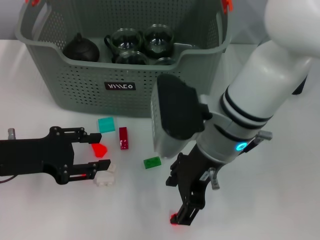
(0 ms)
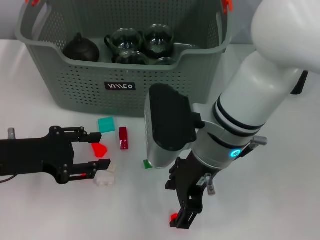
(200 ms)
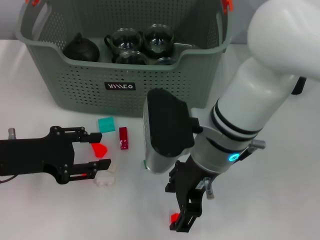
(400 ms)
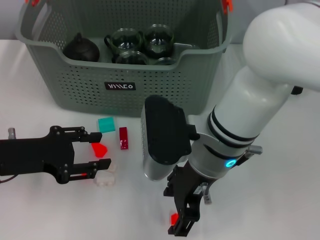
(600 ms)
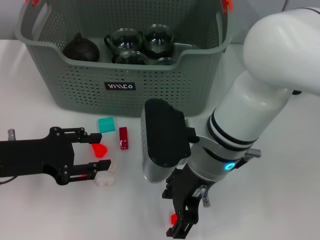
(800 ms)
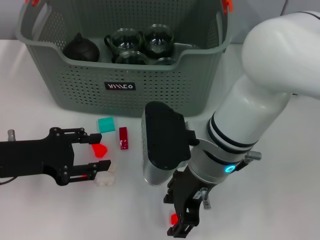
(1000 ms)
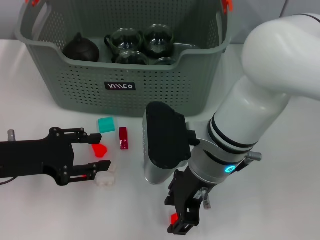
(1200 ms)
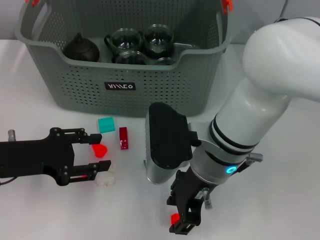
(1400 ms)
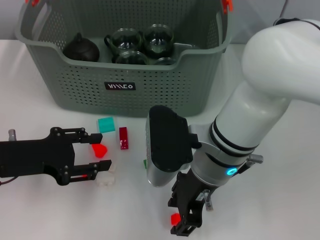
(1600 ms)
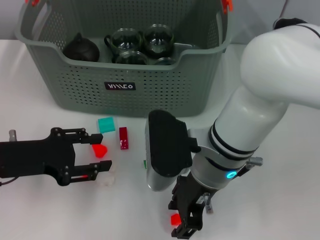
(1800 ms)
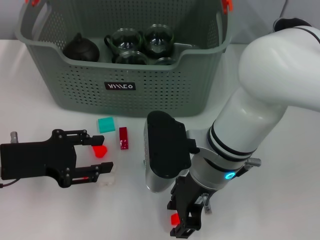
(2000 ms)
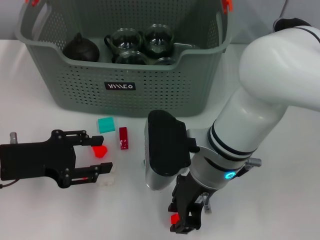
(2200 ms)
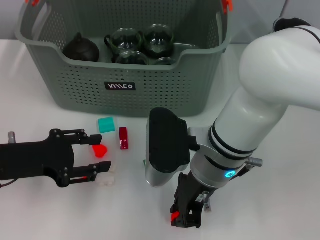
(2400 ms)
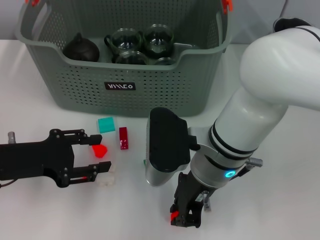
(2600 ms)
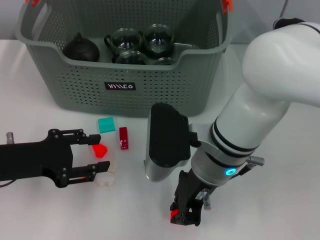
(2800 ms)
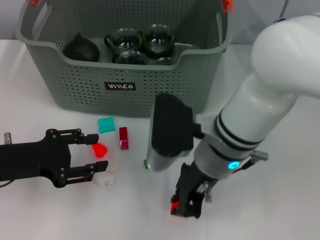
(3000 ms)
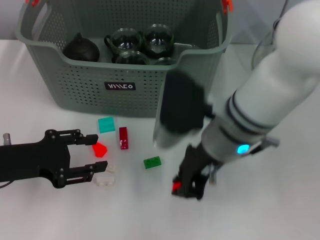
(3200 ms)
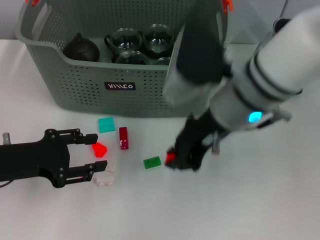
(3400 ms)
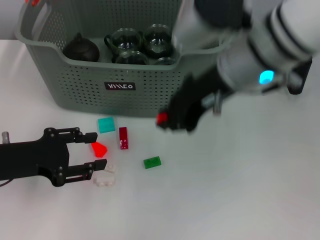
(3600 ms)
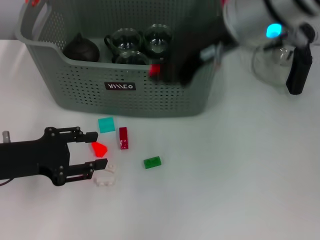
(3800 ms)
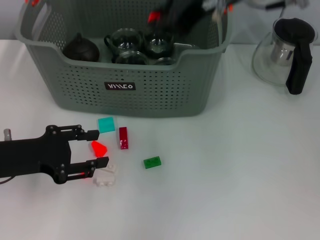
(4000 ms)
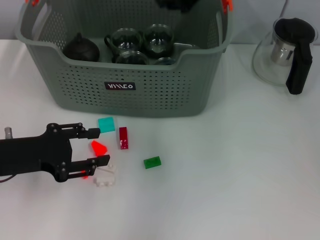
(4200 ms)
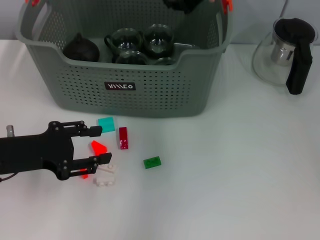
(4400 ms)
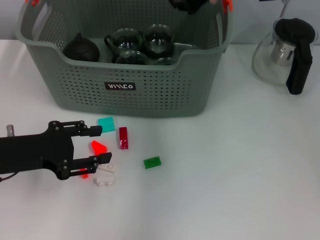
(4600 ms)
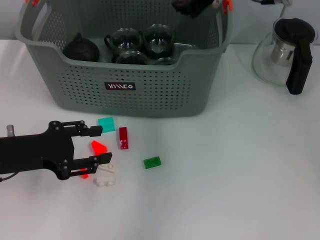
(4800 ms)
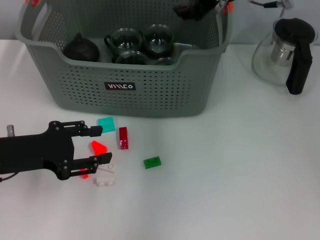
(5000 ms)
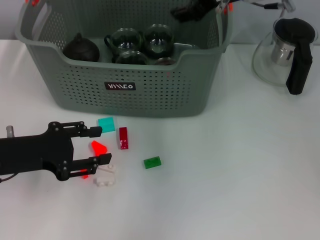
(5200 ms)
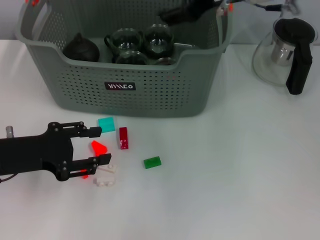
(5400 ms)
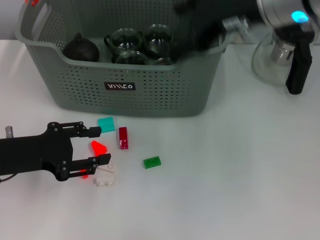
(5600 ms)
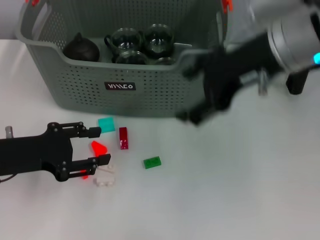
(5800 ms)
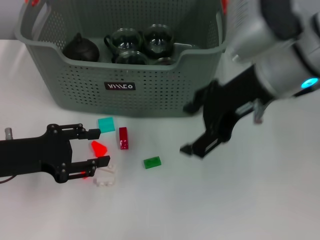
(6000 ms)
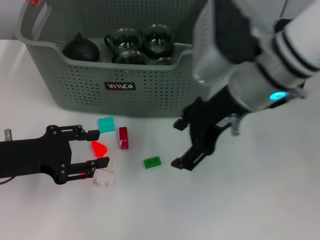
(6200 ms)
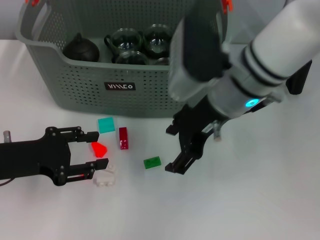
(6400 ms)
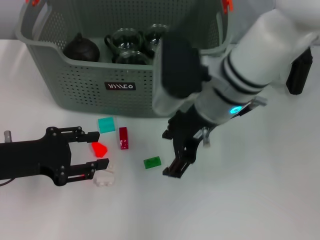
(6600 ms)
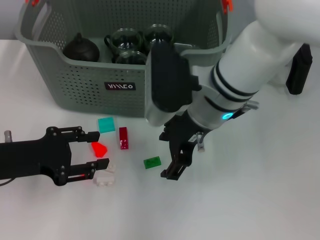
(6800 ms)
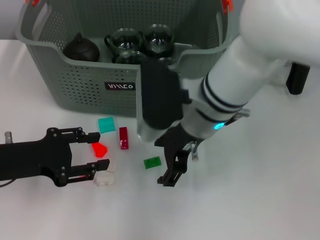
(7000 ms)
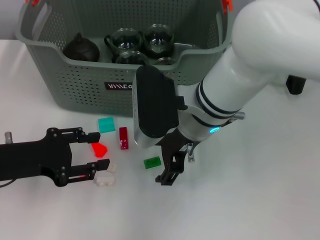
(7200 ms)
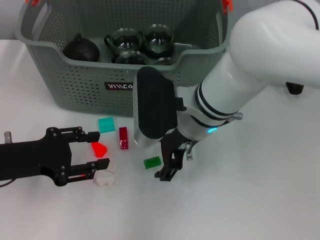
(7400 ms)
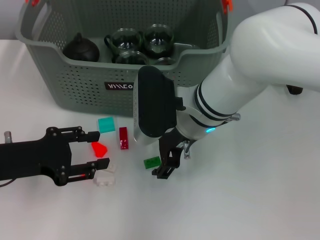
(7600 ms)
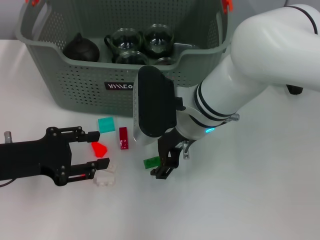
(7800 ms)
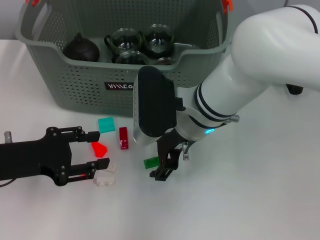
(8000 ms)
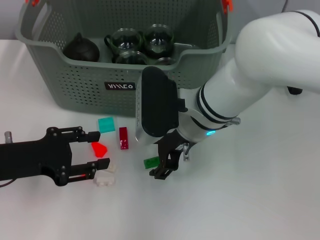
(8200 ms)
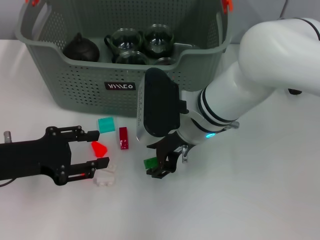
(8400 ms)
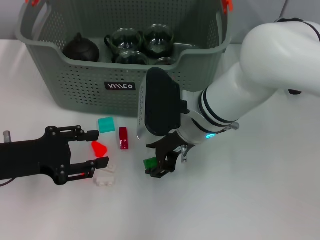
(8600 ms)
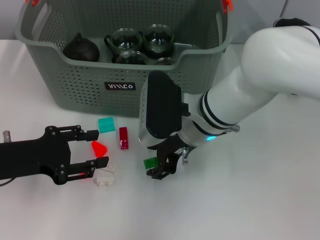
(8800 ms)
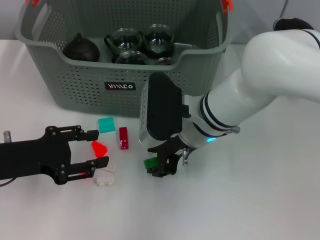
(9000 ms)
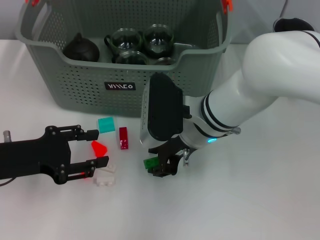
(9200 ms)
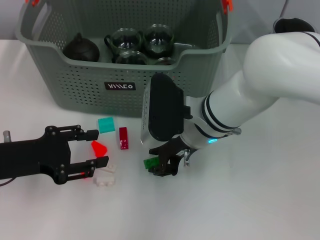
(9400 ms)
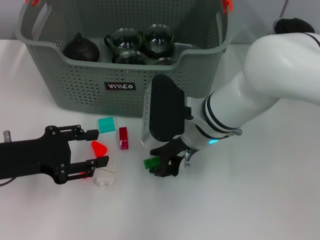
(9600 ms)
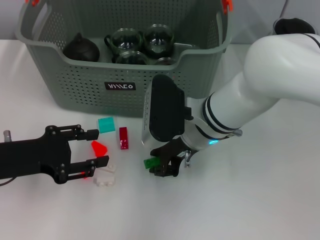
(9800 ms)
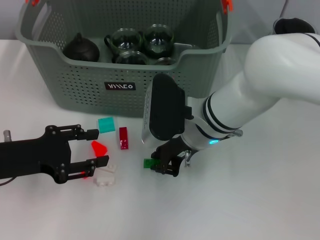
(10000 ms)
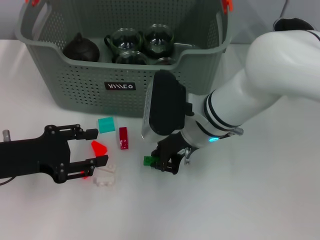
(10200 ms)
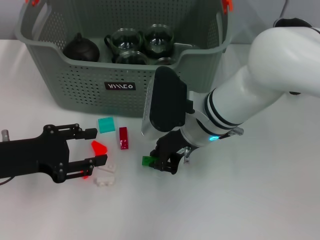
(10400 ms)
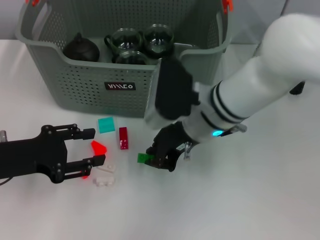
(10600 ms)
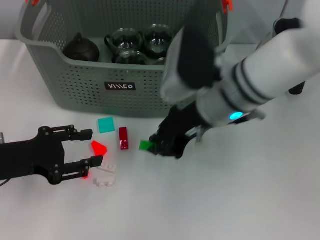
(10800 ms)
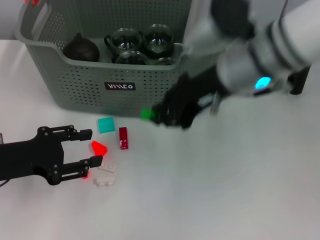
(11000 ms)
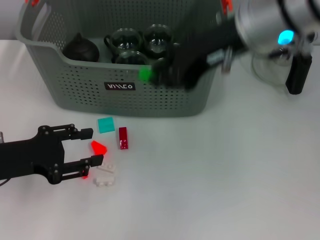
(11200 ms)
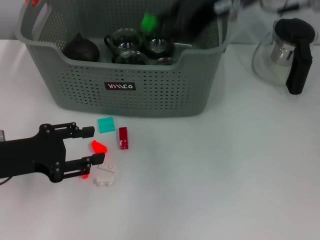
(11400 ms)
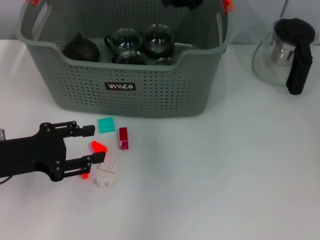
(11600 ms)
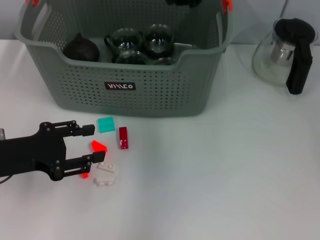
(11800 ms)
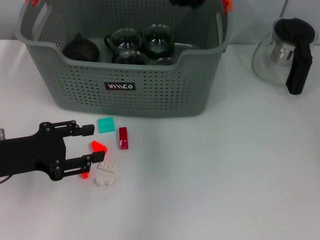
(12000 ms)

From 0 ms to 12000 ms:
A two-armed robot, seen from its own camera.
Task of the whole recording: pick up the teacup on the table and place it into the storage bin, pick up the block on the table and place it into the storage bin.
Step, from 0 ms to 2600 ms: Grasp the orange block with right gripper.
Step, from 2800 ms to 5000 ms: Place the orange block in the storage box with right gripper.
Step, from 5200 ms to 10000 ms: Grasp the green block with right gripper.
From 1600 ms to 3000 ms: The right gripper closes its fingers.
From 3000 ms to 4400 ms: The right gripper shifts approximately 20 cm upward and forward.
From 4400 ms to 6000 ms: The right gripper is displaced backward by roughly 10 cm, and opens its fingers.
From 6000 ms to 7600 ms: The right gripper heads downward and to the left, covering about 15 cm.
From 7600 ms to 9000 ms: The grippers stay close to where they were, moving slightly.
From 9000 ms to 10400 ms: The right gripper closes up.
From 10400 ms to 12000 ms: The right gripper is displaced upward and forward by roughly 20 cm.

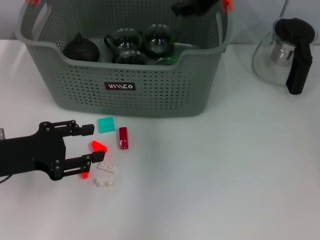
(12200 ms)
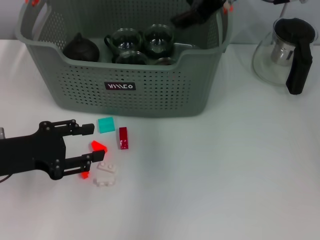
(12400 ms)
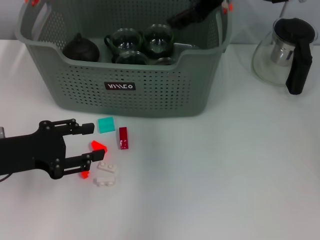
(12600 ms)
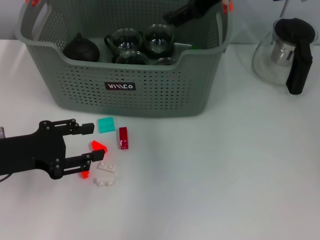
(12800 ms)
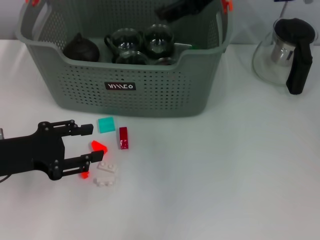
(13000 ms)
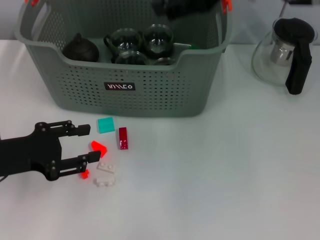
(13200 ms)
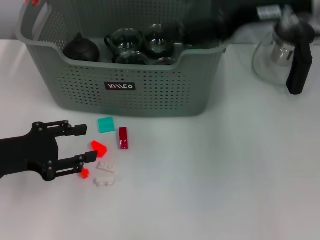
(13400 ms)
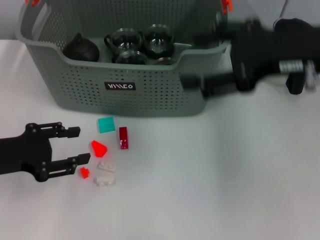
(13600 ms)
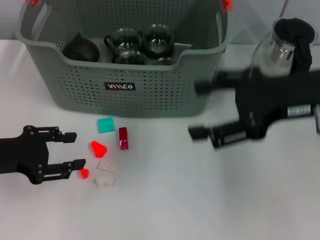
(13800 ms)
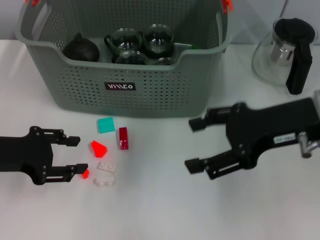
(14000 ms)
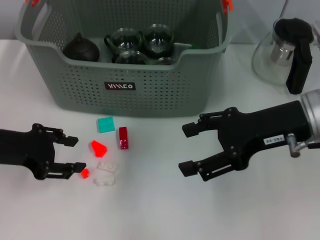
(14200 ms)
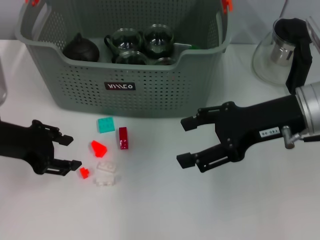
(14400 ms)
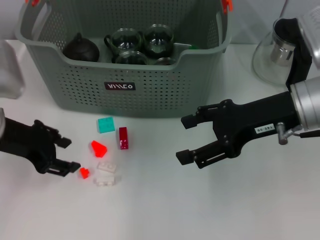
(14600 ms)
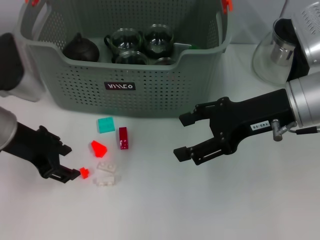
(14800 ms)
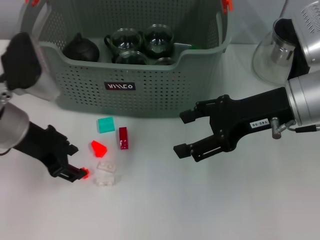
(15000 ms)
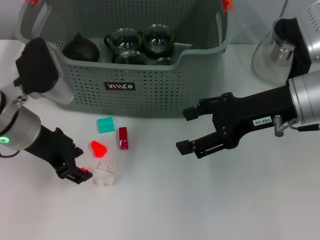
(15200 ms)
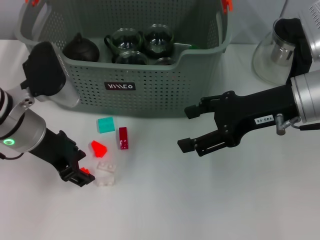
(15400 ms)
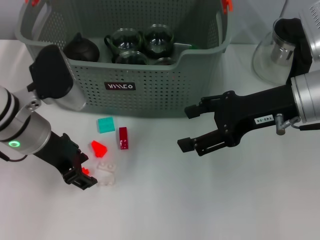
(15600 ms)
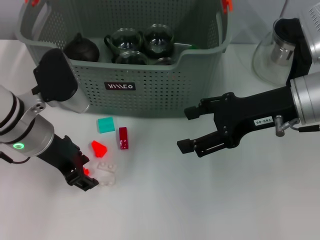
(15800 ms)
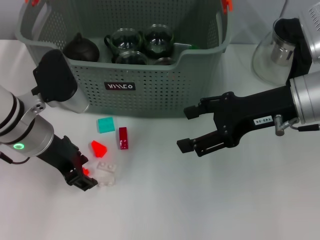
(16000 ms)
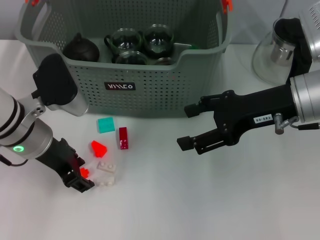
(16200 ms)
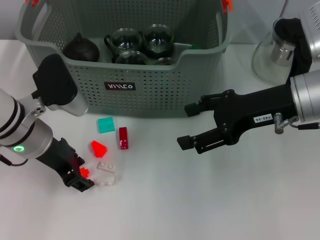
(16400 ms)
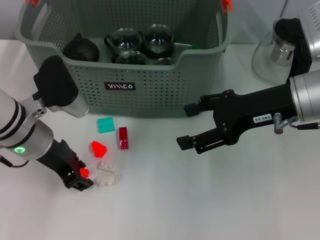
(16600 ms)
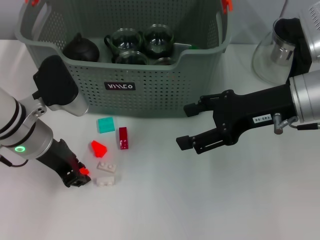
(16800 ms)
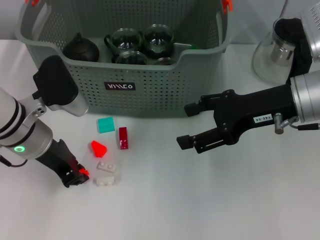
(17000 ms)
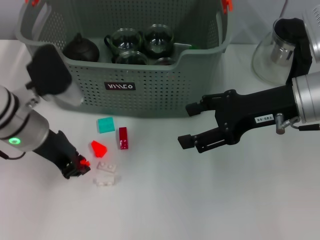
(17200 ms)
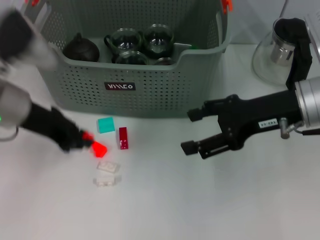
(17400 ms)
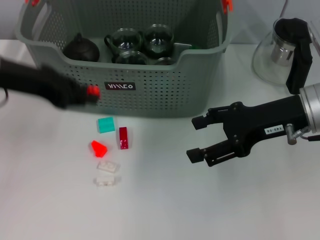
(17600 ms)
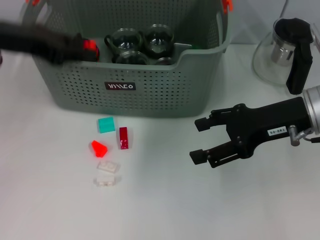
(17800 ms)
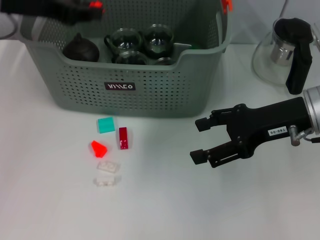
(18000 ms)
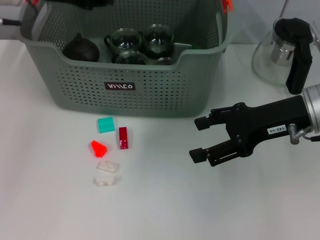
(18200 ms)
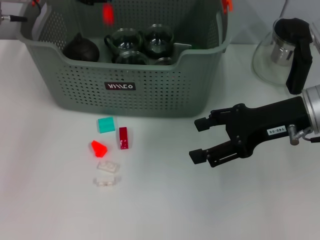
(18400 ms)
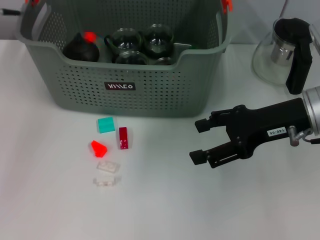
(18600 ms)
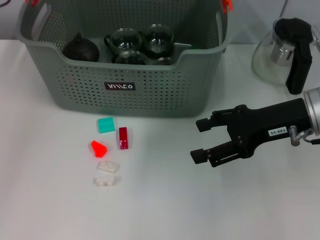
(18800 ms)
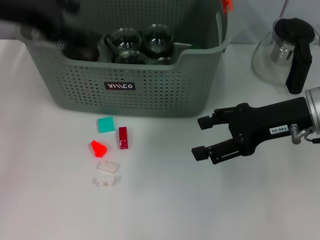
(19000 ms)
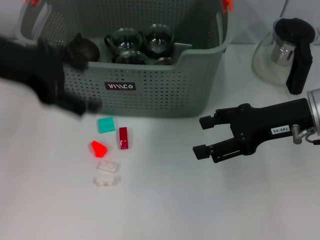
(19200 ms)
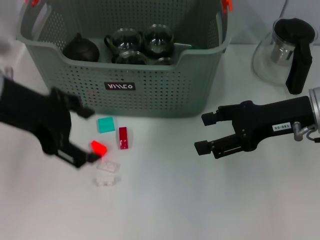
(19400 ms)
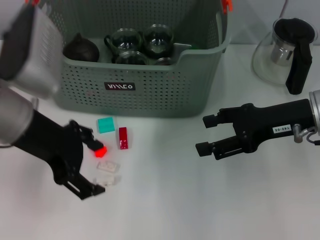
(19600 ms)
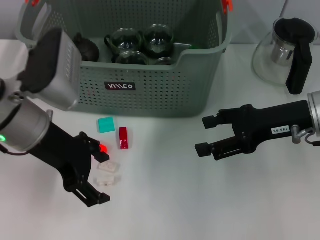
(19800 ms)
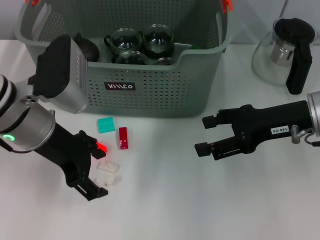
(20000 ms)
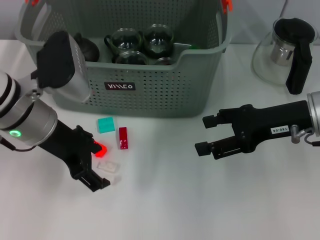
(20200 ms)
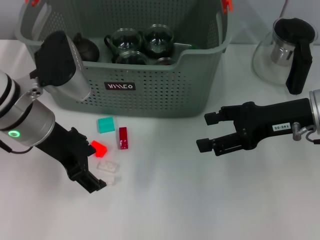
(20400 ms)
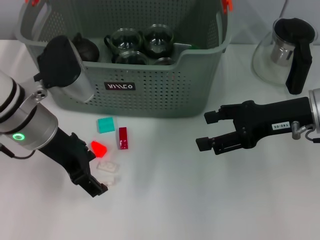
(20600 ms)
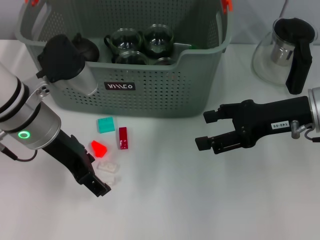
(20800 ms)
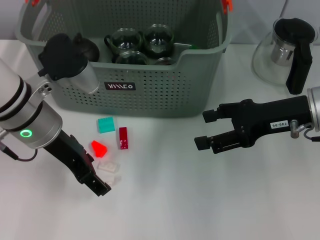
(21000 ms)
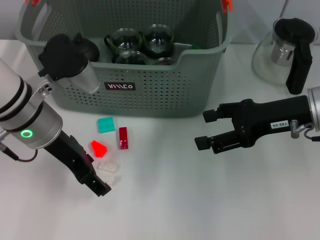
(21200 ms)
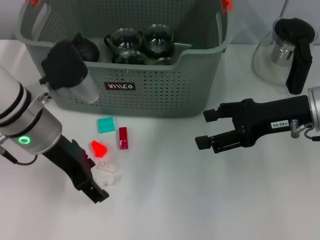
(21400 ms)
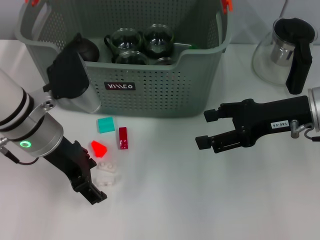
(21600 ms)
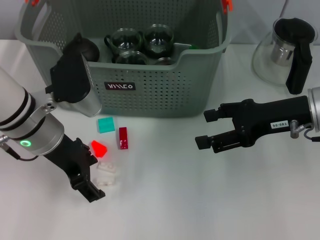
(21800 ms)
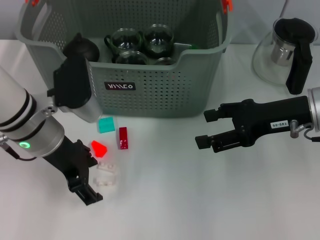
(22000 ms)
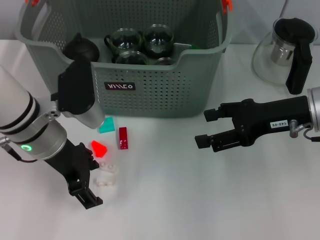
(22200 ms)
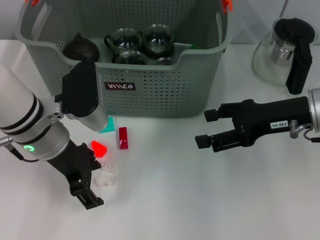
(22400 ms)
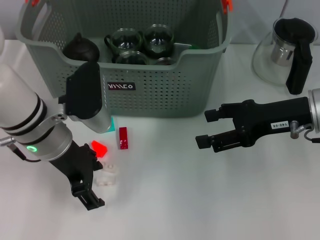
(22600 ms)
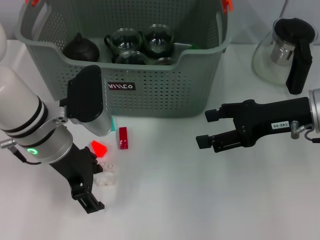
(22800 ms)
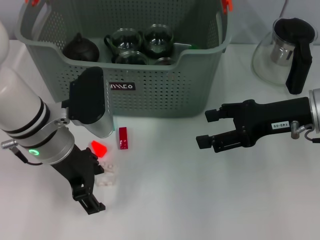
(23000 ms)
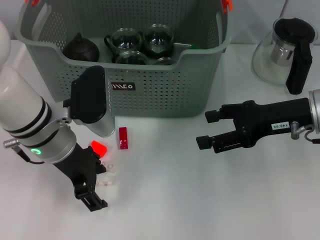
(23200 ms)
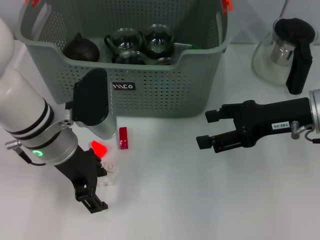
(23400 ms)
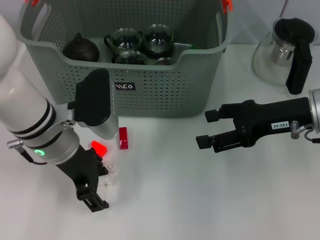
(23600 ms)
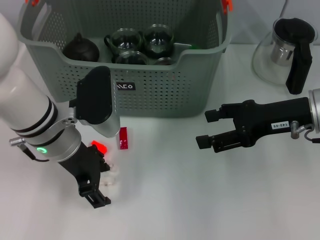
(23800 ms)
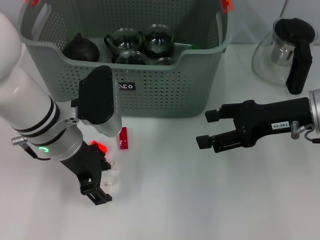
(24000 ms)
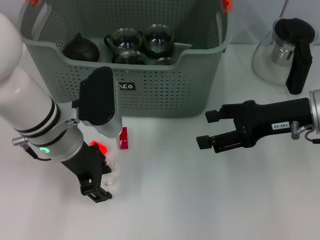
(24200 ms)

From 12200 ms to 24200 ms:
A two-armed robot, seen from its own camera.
Task of the whole recording: pick up the teacup on the table and place it into the storage bin, pick up the block on the table and place it into the storage bin.
Step, from 12400 ms to 17000 ms: Grasp the orange block with left gripper.
Step, from 17200 ms to 18400 ms: Place the orange block in the storage box with left gripper.
From 12200 ms to 13800 ms: The right gripper moves backward, to the right and downward, roughly 15 cm, and opens its fingers.
From 13800 ms to 15200 ms: The left gripper is displaced to the right and forward by about 10 cm. The right gripper changes place by approximately 5 cm.
From 15200 ms to 16600 ms: There are only small adjustments of the grippers.
From 16600 ms to 18200 ms: The left gripper heads upward and forward, covering some 15 cm, and closes up.
From 18200 ms to 19800 ms: The left gripper is displaced backward and downward by roughly 15 cm, and opens up.
From 22600 ms to 24200 ms: There are only small adjustments of the grippers.
